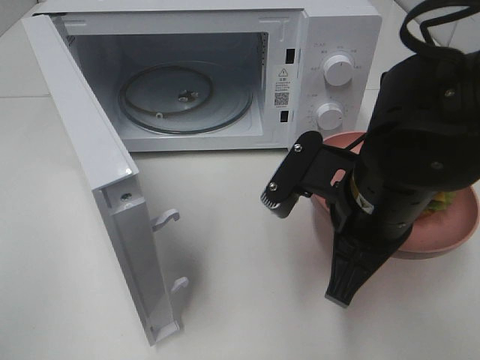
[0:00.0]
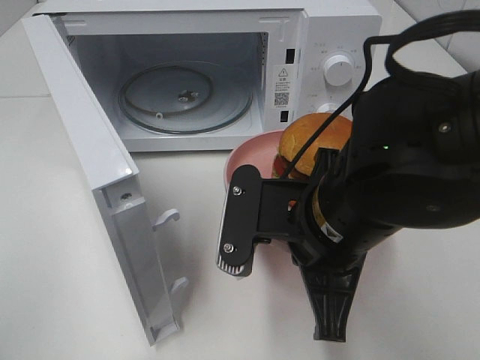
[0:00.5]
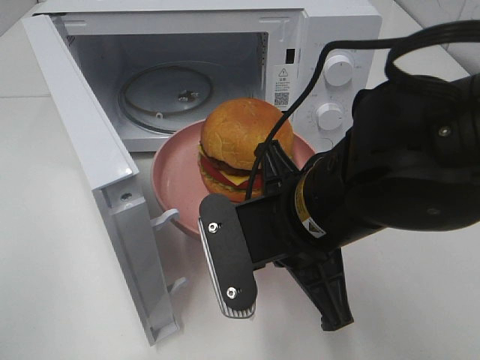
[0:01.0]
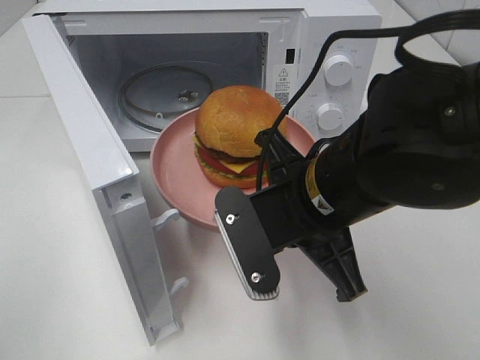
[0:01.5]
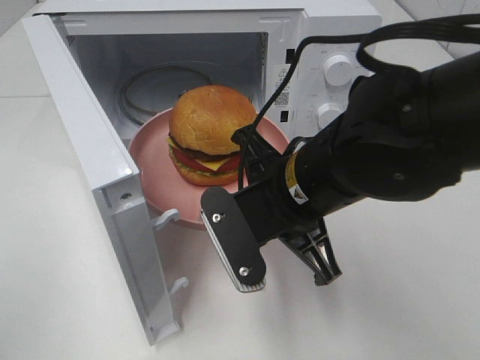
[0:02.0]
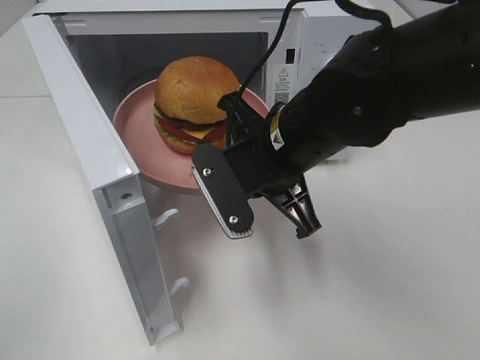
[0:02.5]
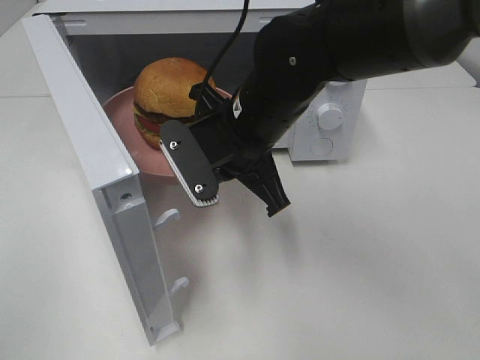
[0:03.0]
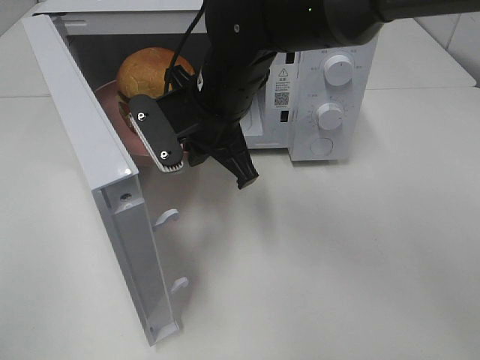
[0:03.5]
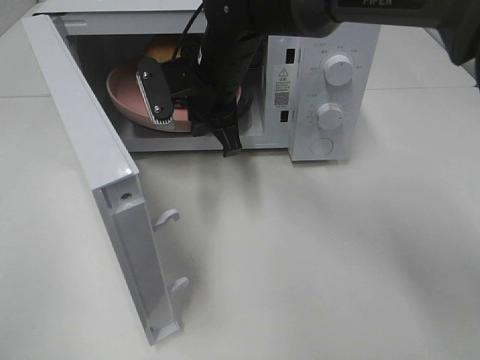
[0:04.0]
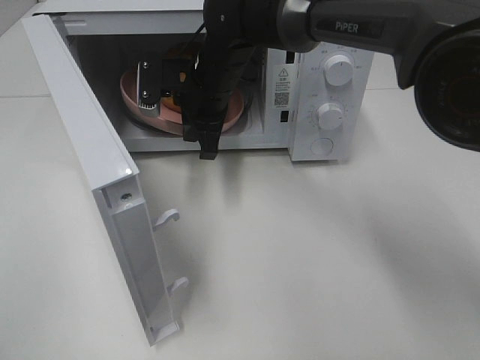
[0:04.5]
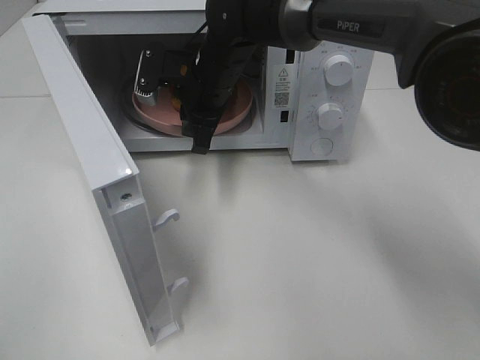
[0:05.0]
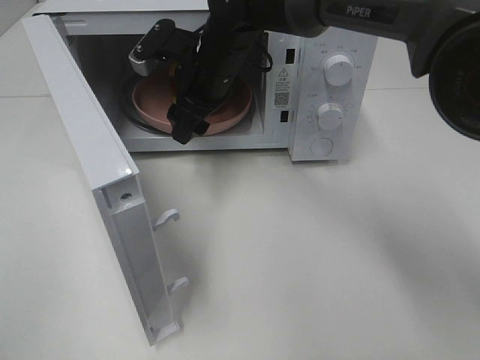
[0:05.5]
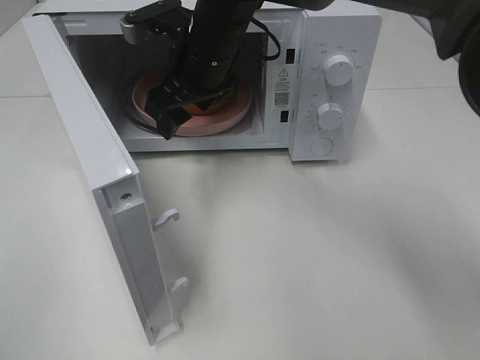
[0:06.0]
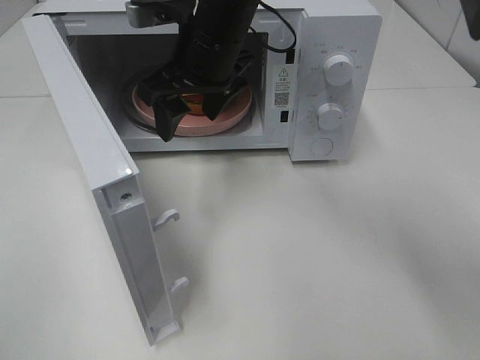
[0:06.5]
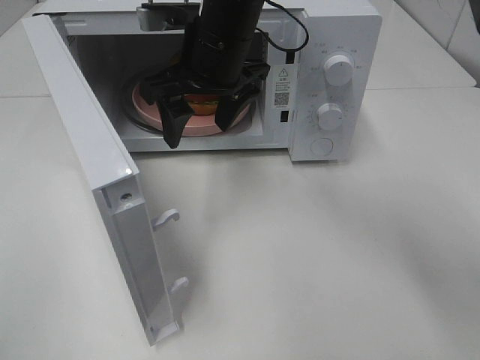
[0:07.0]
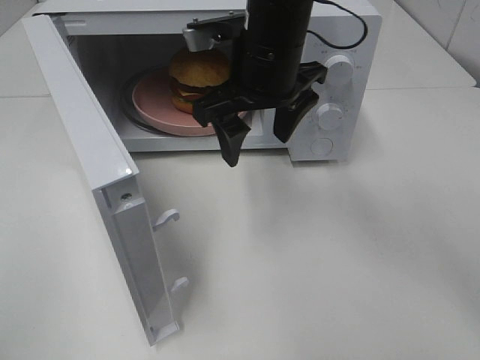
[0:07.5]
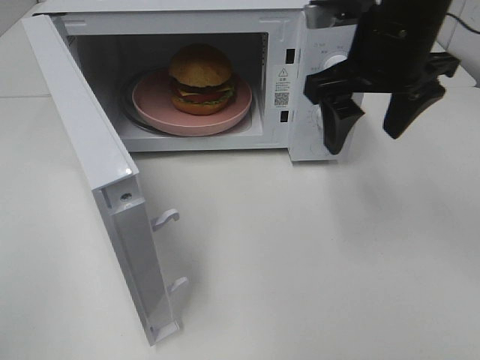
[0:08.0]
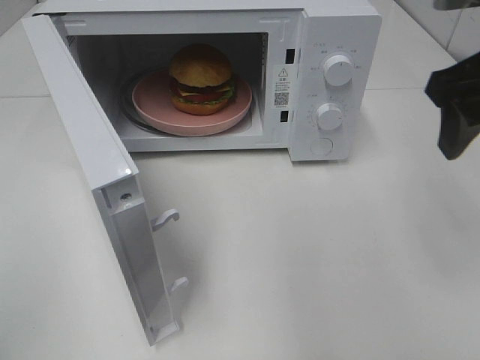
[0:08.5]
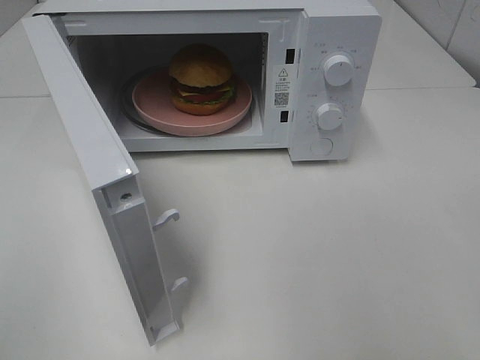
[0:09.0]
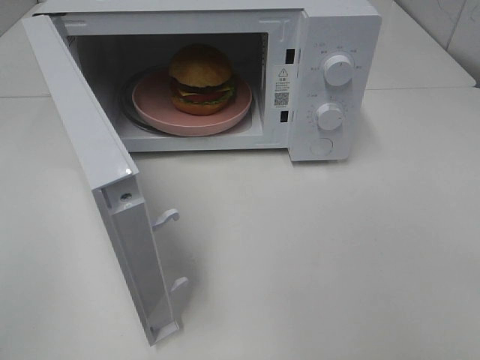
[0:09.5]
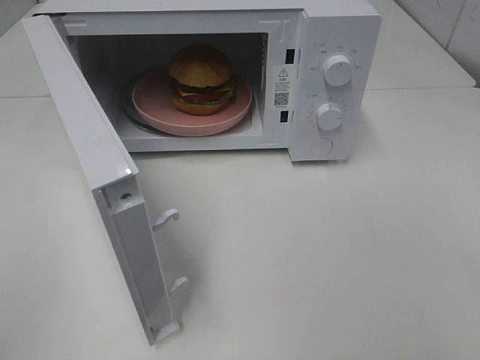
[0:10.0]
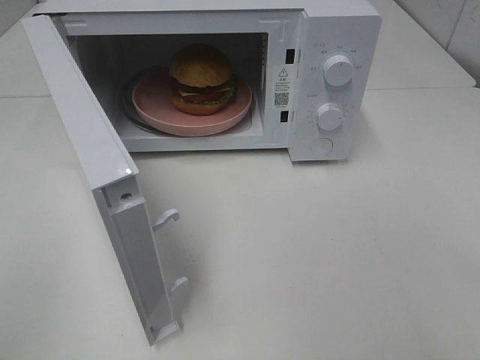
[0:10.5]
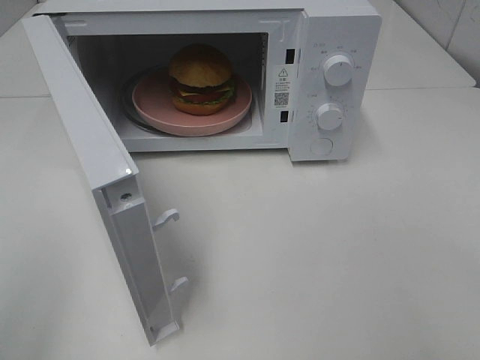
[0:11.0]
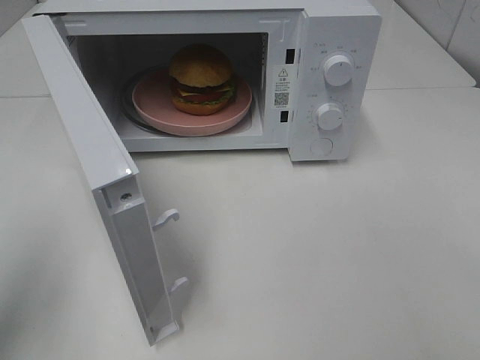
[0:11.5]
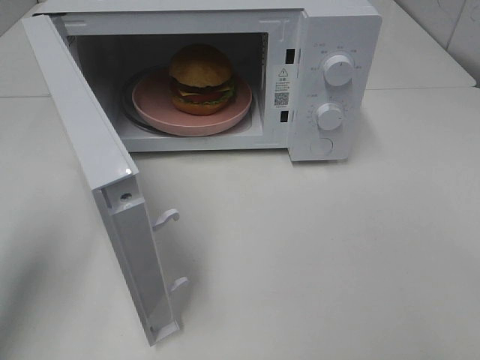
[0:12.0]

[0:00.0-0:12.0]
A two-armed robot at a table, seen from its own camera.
Task of the whole recording: Heat the burger.
Step, 0:00.0 to 0:05.0: Right hand: place the plate in the microwave.
0:00.0 to 0:02.0: The right gripper shifts roughly 5 cm to the left.
0:02.0 to 0:04.0: The right gripper heads forward and to the left, covering roughly 20 cm.
0:04.0 to 0:06.0: The right gripper opens up.
0:06.0 to 0:08.0: The right gripper is displaced to the right by roughly 20 cm.
0:08.0 to 0:10.0: The right gripper goes some 35 cm backward and to the right.
0:10.0 to 0:12.0: The left gripper goes some 20 cm forward.

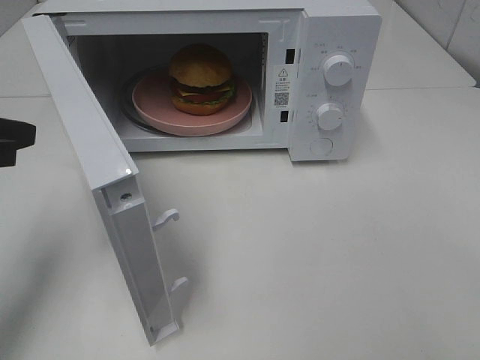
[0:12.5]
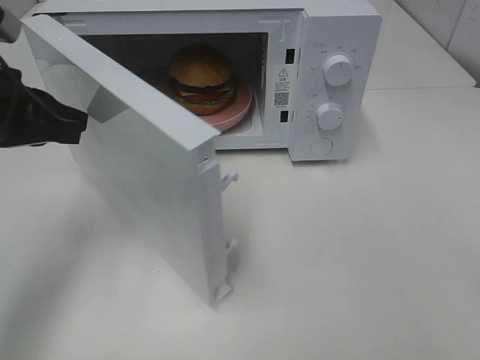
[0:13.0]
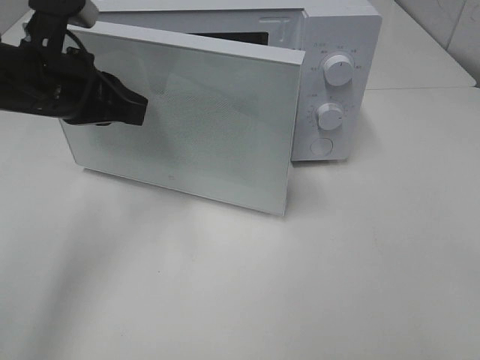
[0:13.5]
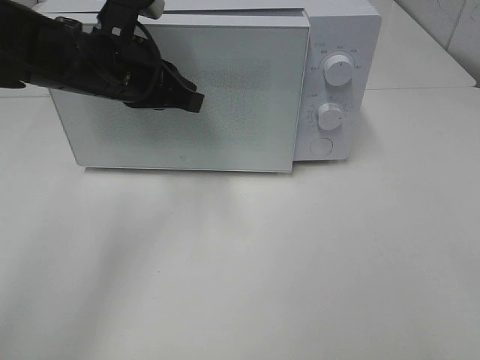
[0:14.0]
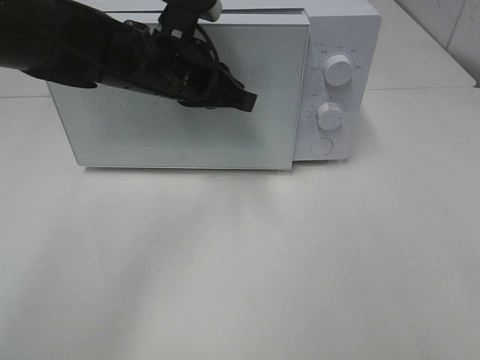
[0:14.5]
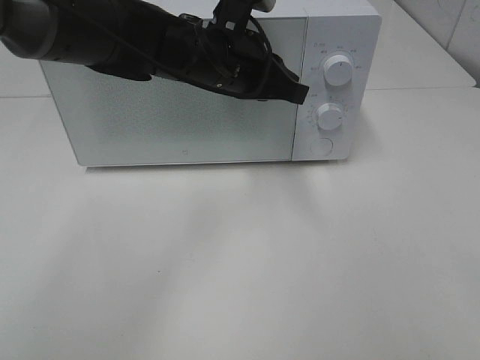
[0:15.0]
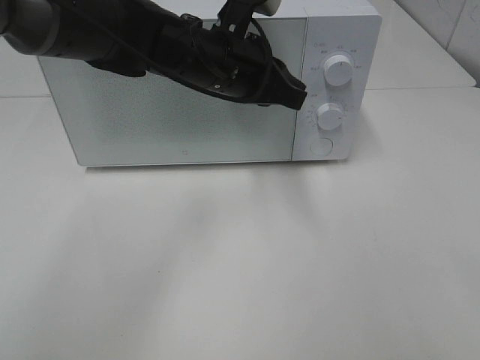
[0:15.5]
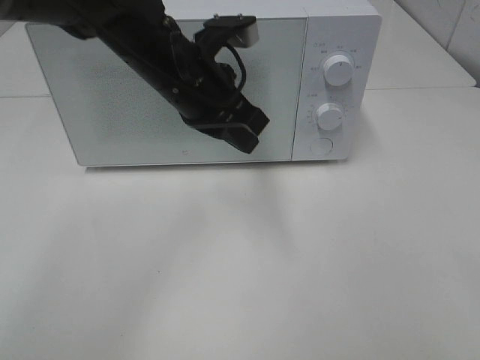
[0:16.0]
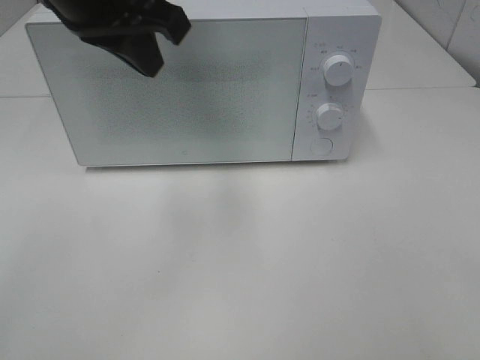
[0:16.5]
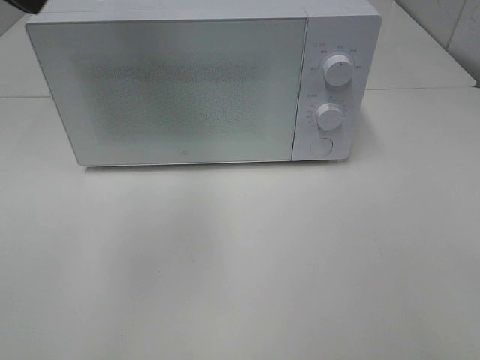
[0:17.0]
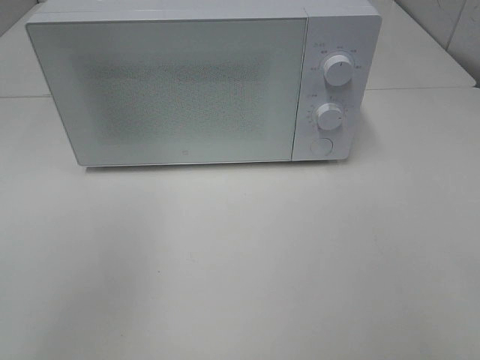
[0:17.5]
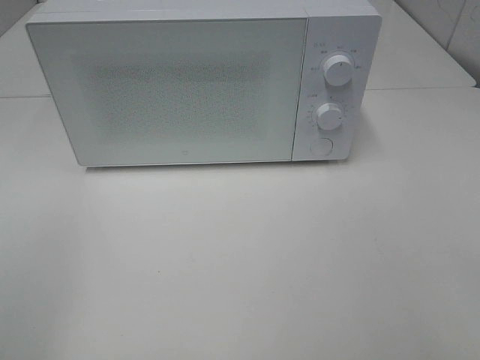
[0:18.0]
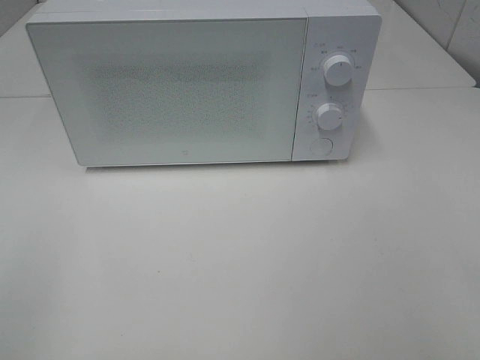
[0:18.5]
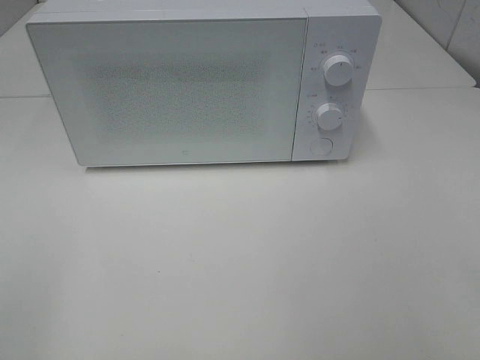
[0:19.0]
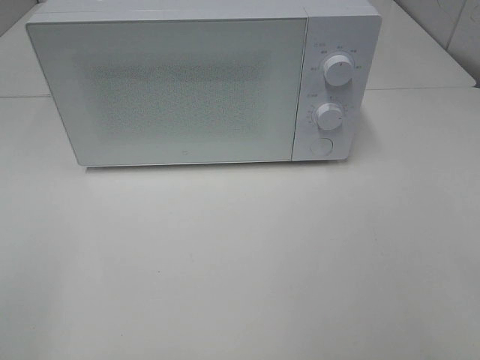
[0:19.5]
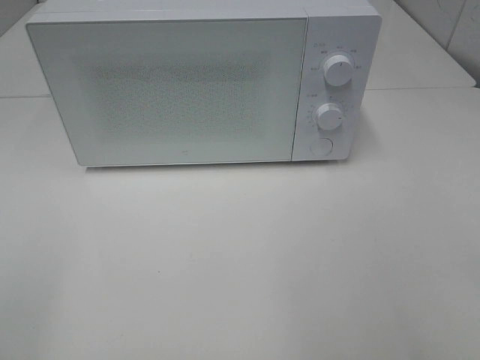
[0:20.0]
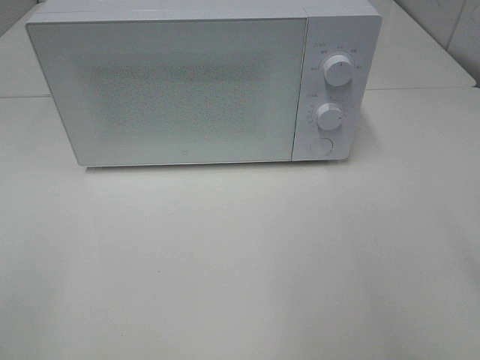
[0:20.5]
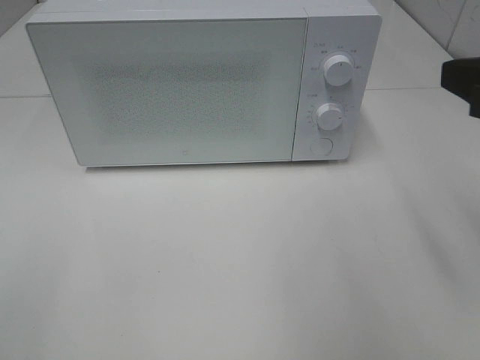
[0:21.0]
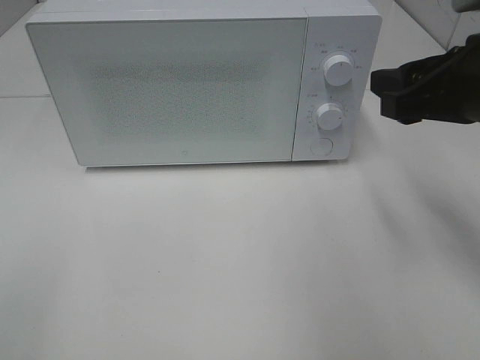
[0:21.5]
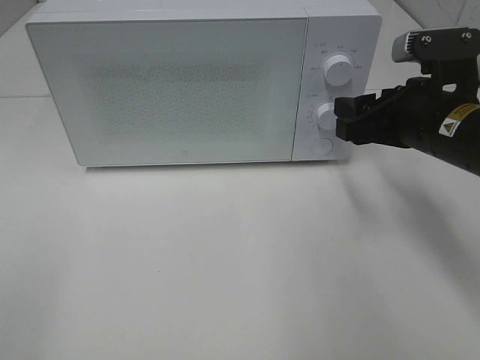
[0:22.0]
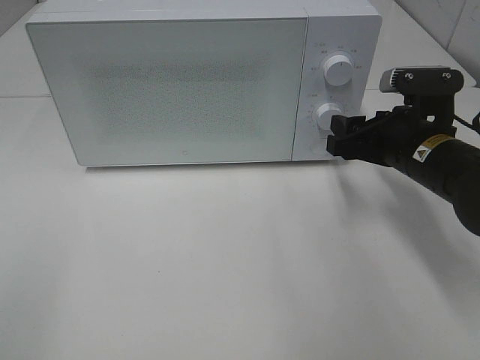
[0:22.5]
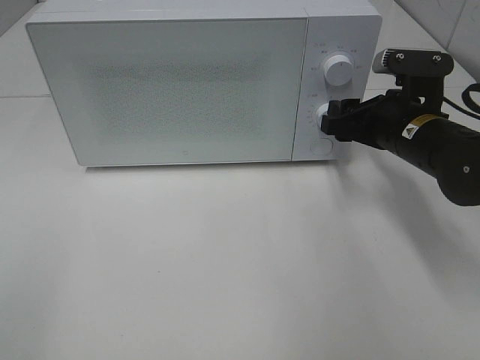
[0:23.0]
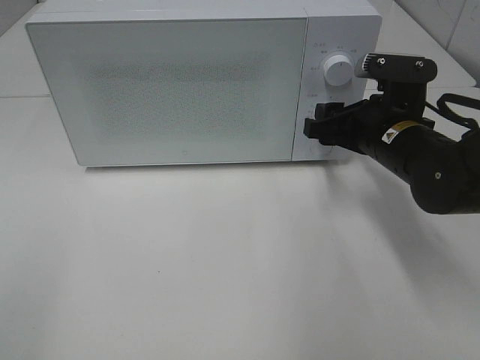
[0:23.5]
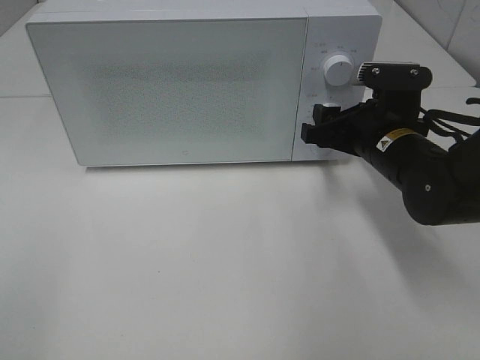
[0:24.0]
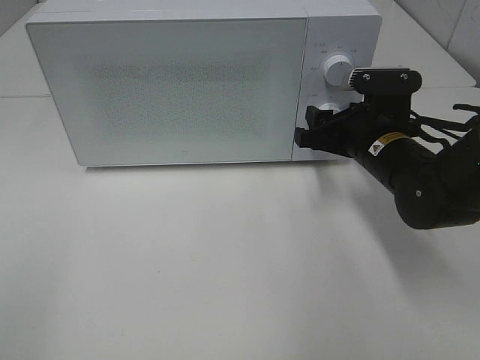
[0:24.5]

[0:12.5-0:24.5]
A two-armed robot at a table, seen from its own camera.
Task of the whole recording: Heat the burger.
Step, 0:12.5 to 0:15.0: Left hand: close the microwave door.
0:12.5 to 0:14.5: The left gripper moves to the right and forward, about 25 cm.
0:14.5 to 0:16.5: The left gripper is displaced upward and backward by about 15 cm.
0:16.5 to 0:18.5: The left gripper shifts roughly 35 cm backward and to the left.
0:20.5 to 0:22.5: The right gripper travels forward and downward by about 25 cm.
0:22.5 to 0:24.5: The grippers make only small movements.

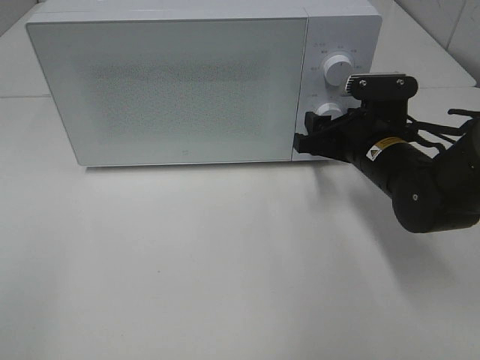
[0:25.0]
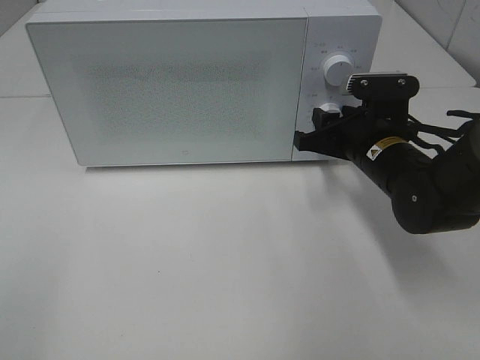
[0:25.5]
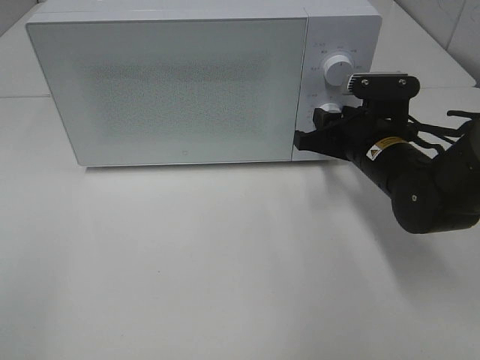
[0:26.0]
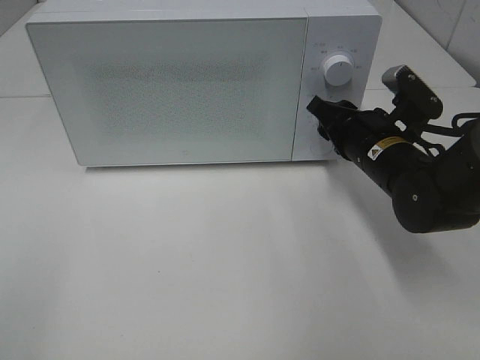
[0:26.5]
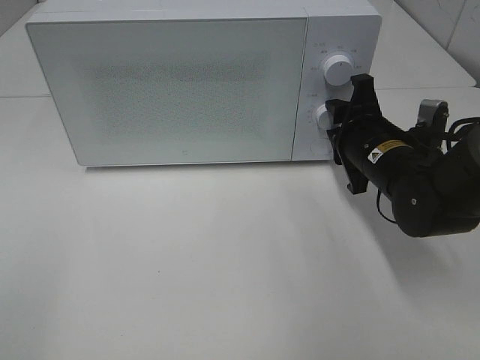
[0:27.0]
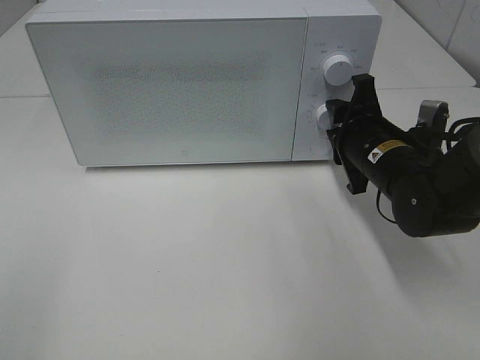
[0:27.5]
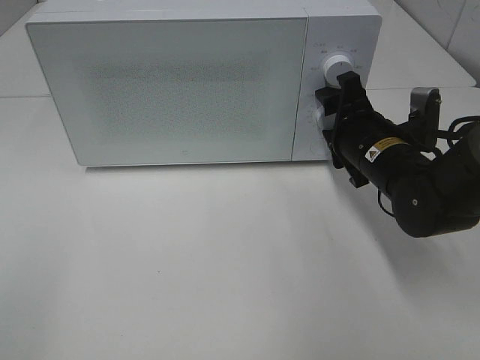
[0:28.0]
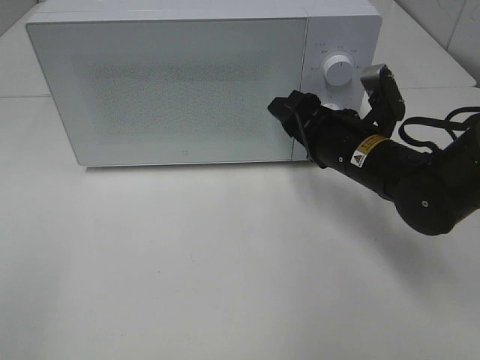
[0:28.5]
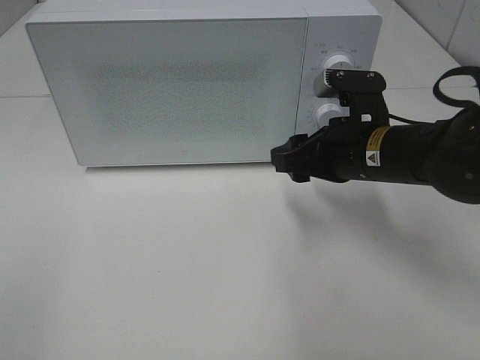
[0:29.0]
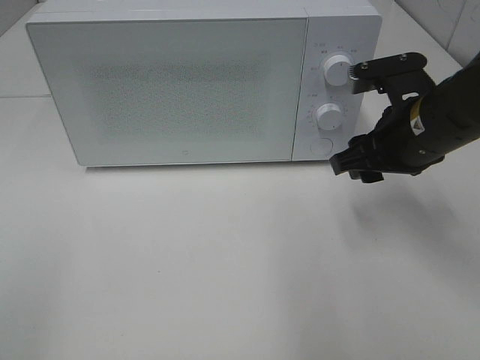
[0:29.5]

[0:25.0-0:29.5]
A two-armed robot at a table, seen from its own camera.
Task of the whole recording: Heat the burger.
Step, 0:25.0 to 0:27.5: Right hand: twist timer button.
0:27.0 to 0:29.5: The right gripper moves upward, roughly 5 cm.
